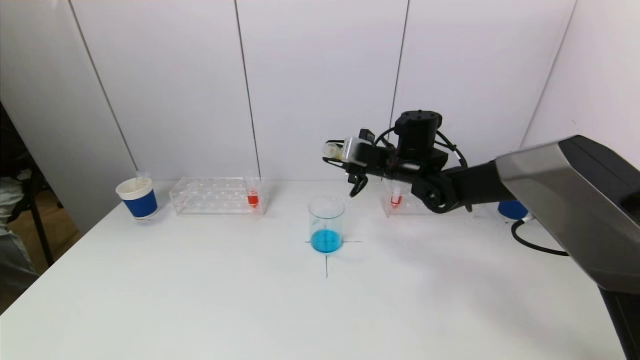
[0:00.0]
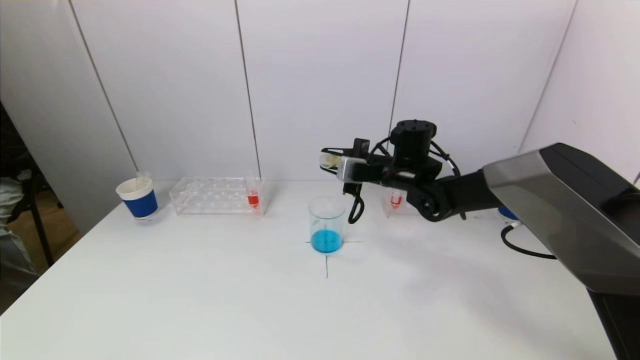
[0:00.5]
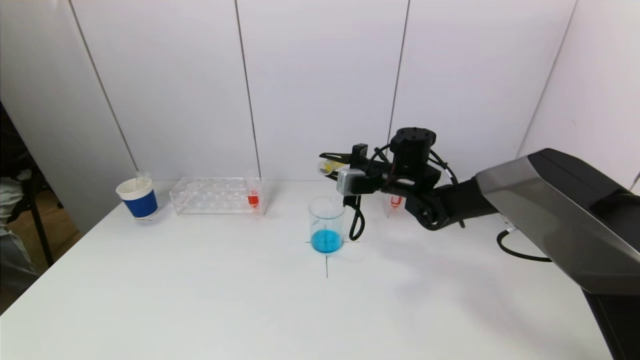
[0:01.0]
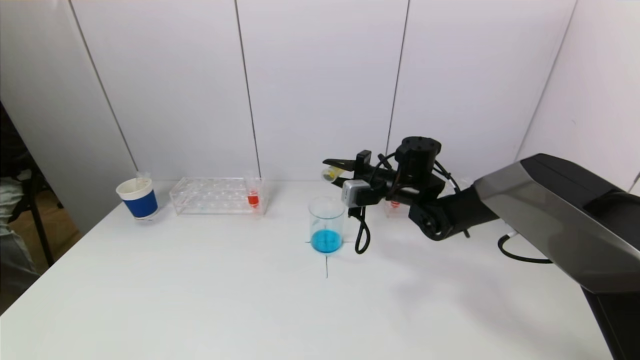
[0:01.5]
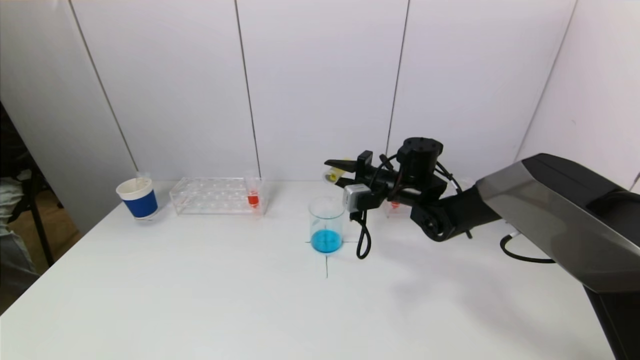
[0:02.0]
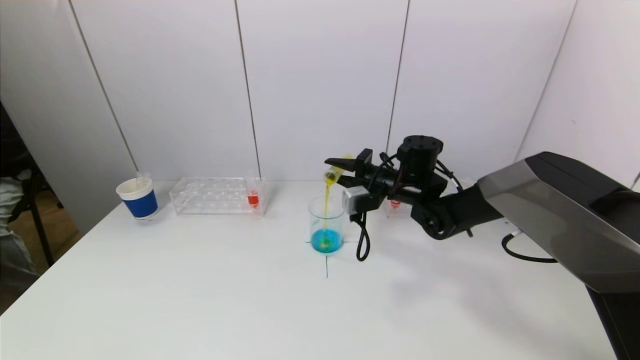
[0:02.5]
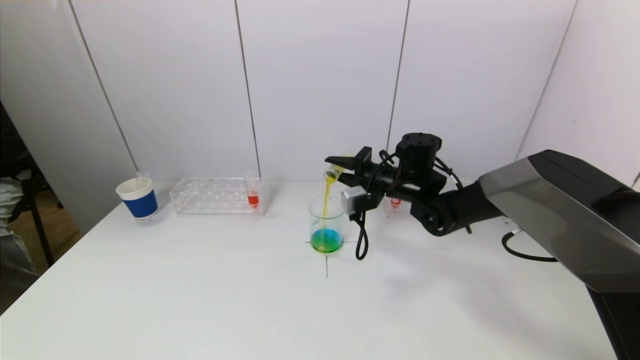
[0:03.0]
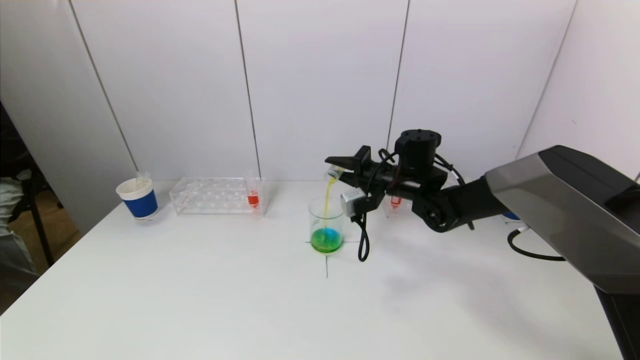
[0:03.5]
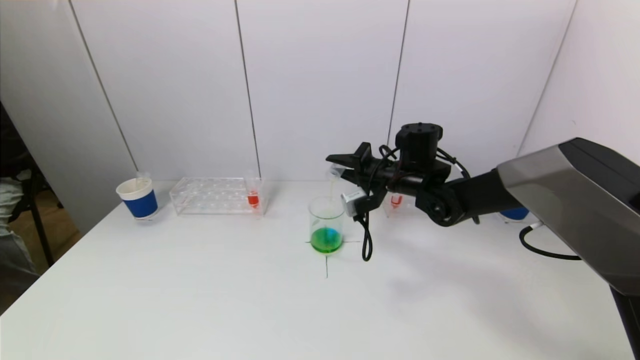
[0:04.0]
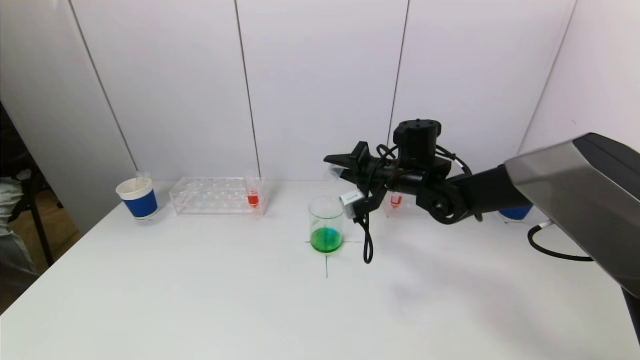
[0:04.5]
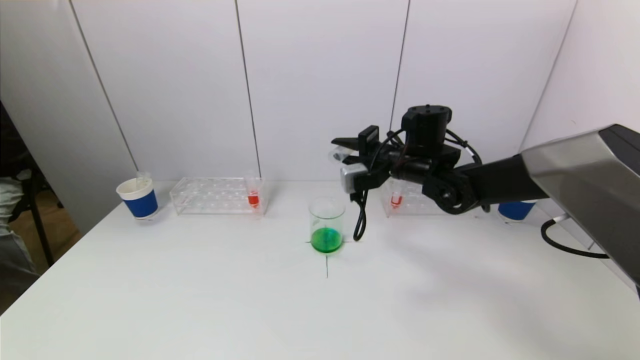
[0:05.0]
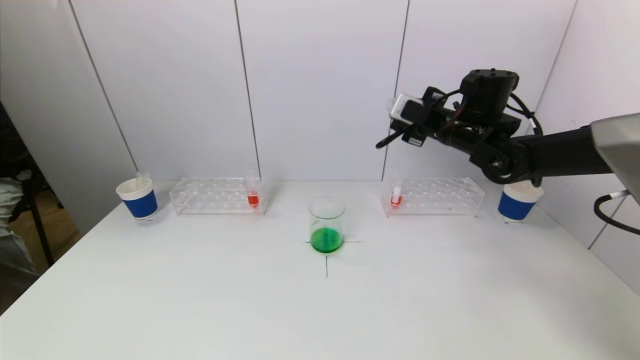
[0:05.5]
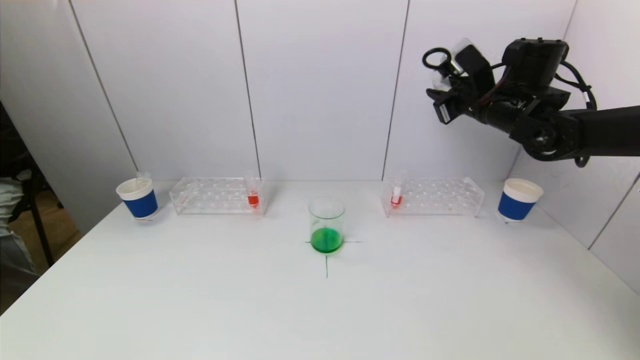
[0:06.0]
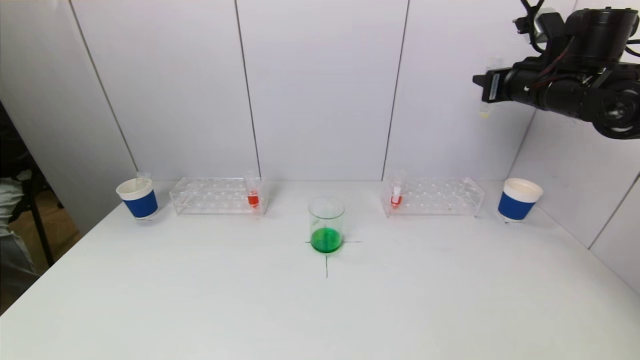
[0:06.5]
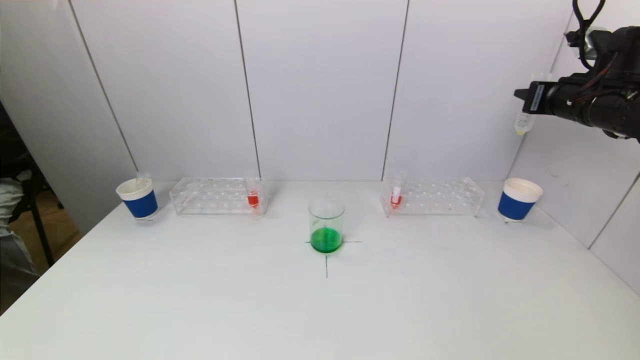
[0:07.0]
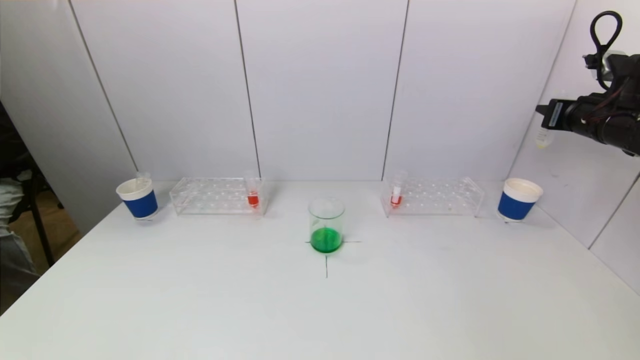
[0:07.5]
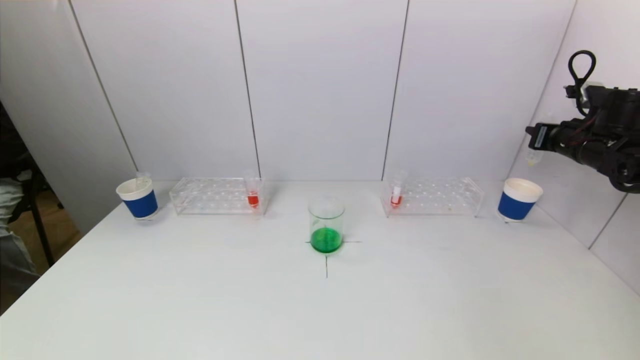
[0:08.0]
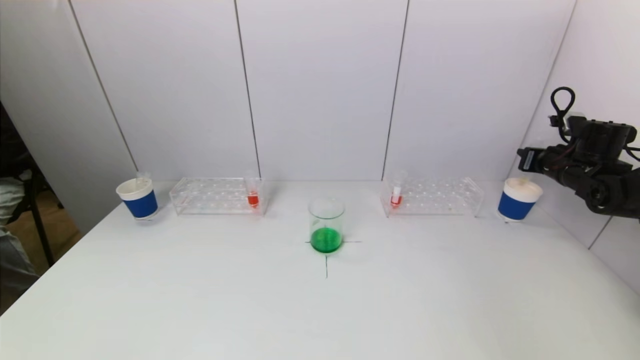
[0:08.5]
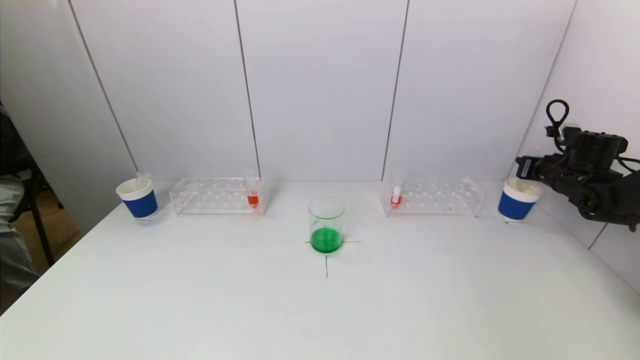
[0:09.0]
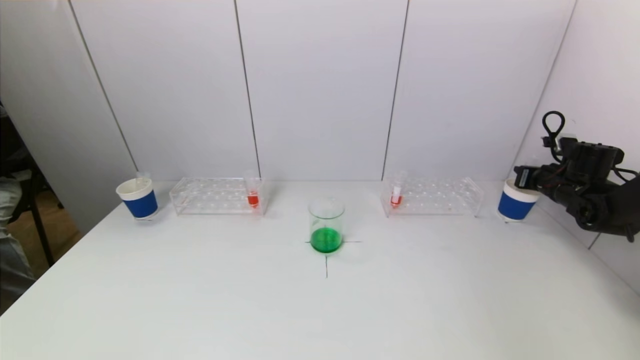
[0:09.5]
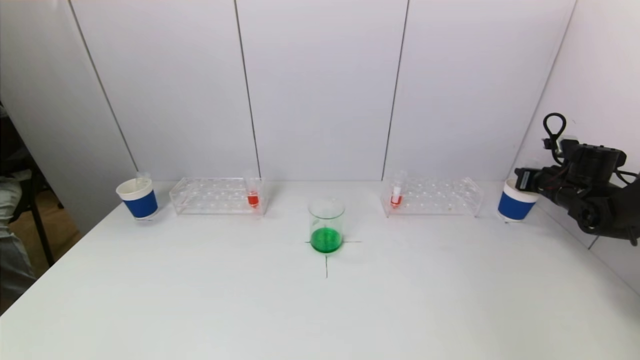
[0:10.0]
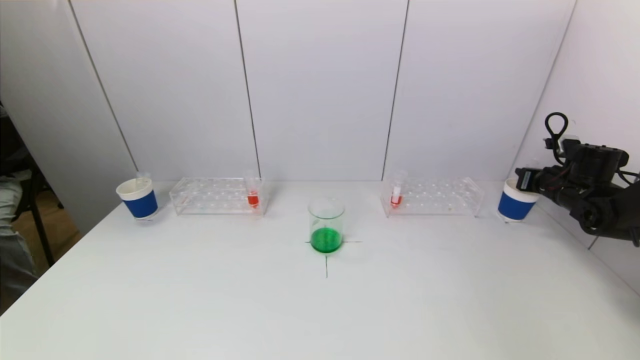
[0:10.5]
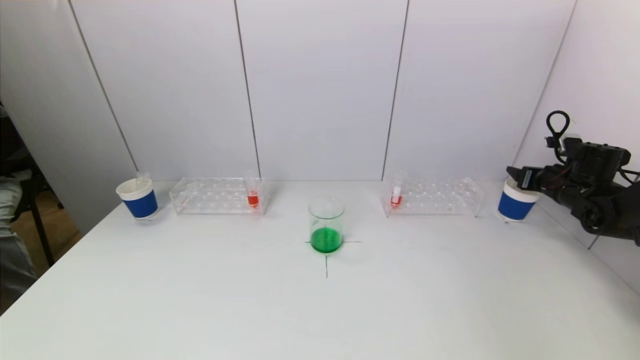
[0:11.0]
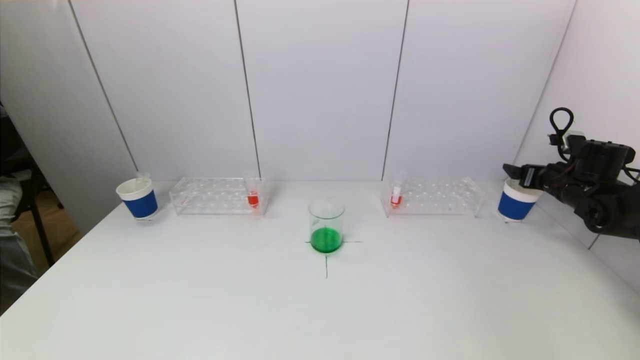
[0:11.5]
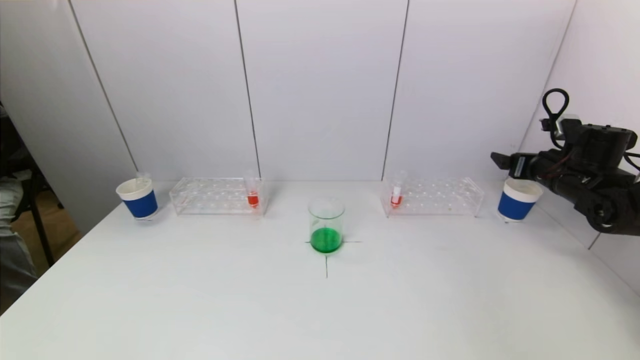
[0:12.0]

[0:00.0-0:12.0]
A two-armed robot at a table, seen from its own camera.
Task of the whole recording: pick up a test tube with pigment on left test tube rack and a test tube with pigment on right test tube rack by grippers and pour them into the beaker.
Step, 0:00.0 to 0:04.5: Pour the yellow reagent into the graduated cylinder with the right gripper.
Step, 0:05.0 to 0:11.5: Place the test tube into the paper cup with the right gripper.
0:04.0 to 0:06.0: The right gripper is displaced to the right and upward by roughly 20 cm.
0:06.0 to 0:08.0: The right gripper travels to the right and downward by some 20 cm.
0:08.0 to 0:10.0: The right gripper goes approximately 10 cm downward.
0:10.0 to 0:12.0: The right gripper travels to the left and upward by about 10 cm, and opens its fingers.

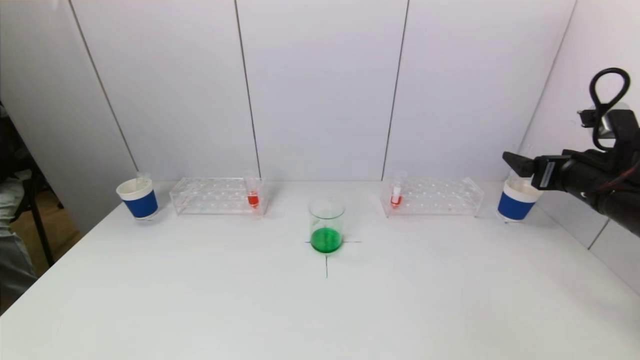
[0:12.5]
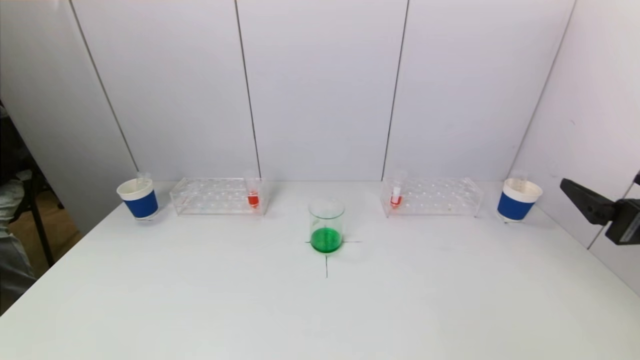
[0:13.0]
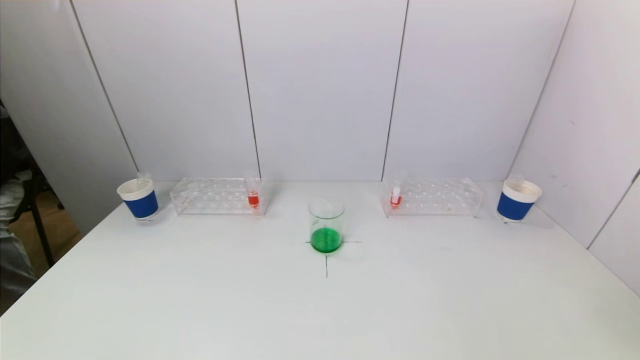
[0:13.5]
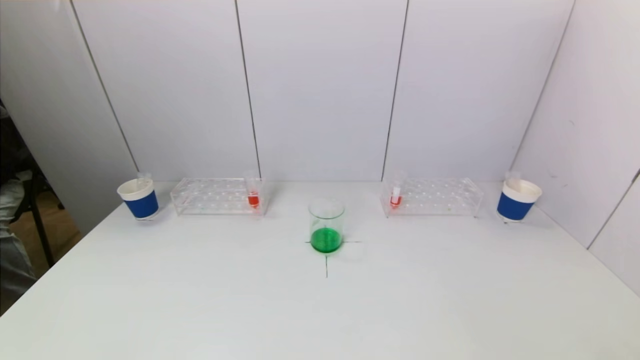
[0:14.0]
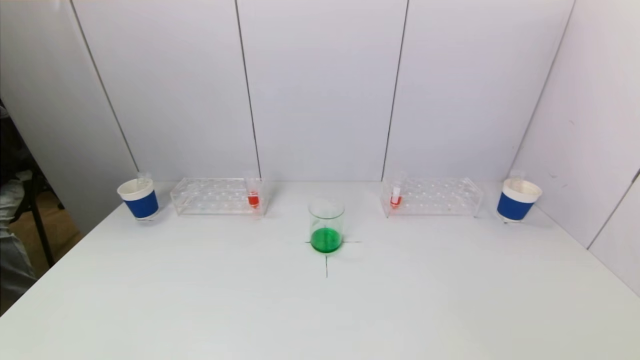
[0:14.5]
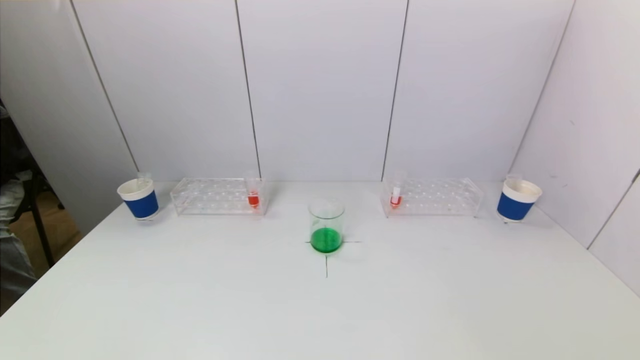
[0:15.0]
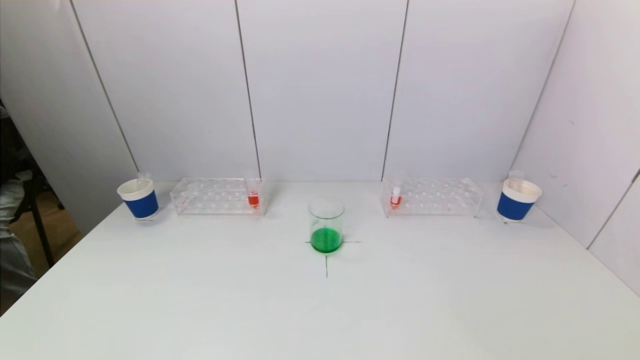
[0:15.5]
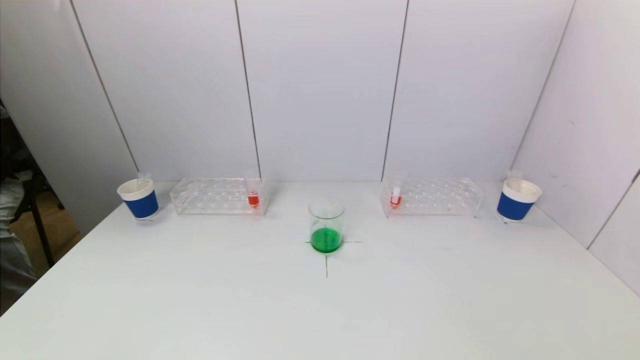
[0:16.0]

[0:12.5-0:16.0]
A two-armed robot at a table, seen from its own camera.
Task of the whole recording: pick up a test tube with pigment on left test tube rack and a test tube with pigment on right test tube rack by grippers and pour them into the beaker.
0:12.5 to 0:14.5: The right gripper is displaced backward by approximately 30 cm.
0:14.5 to 0:16.0: Neither gripper changes place.
